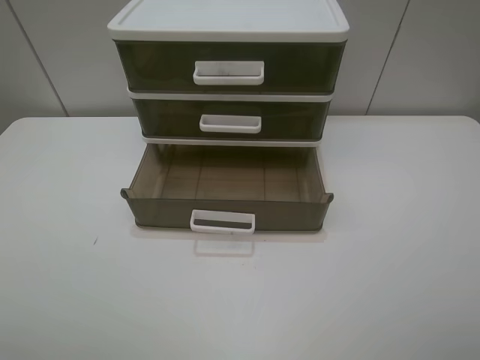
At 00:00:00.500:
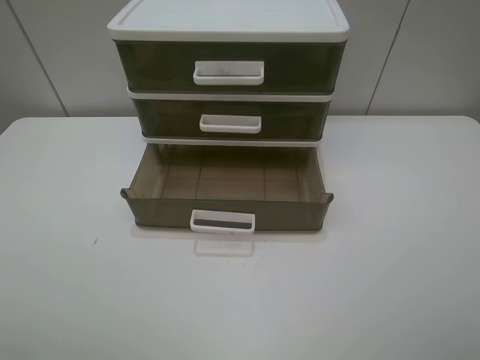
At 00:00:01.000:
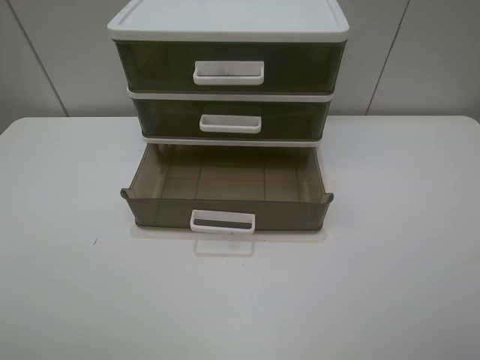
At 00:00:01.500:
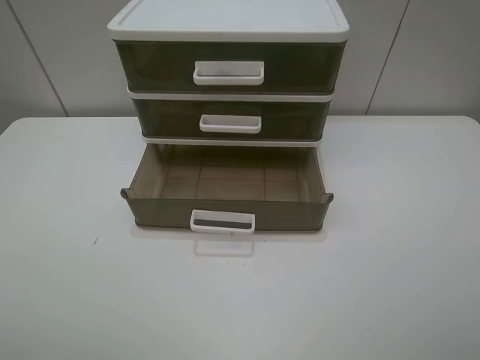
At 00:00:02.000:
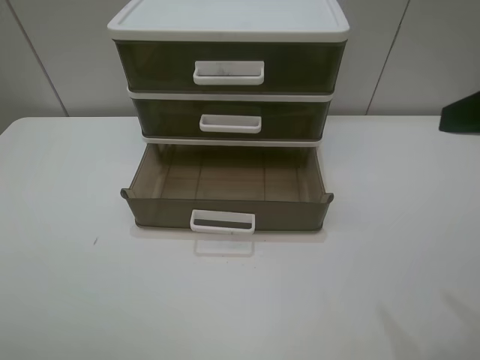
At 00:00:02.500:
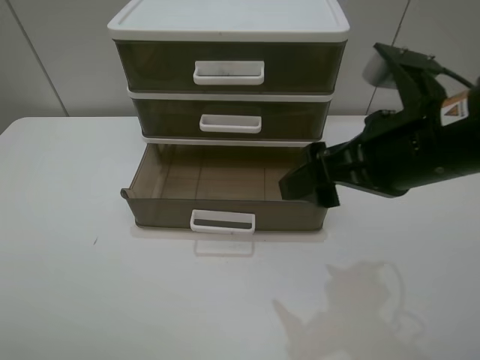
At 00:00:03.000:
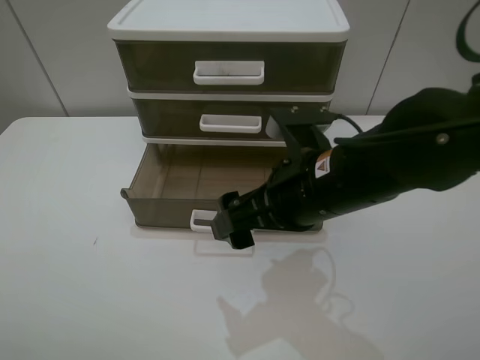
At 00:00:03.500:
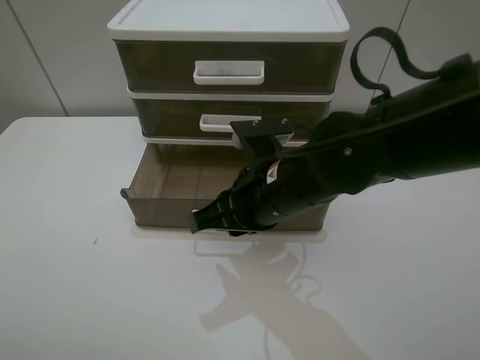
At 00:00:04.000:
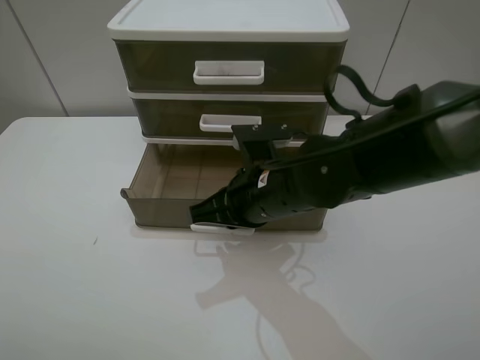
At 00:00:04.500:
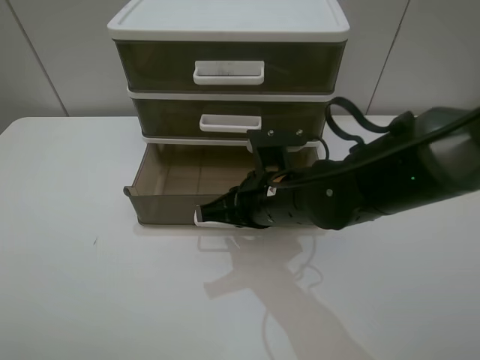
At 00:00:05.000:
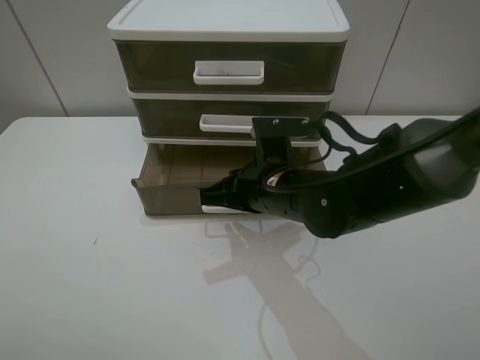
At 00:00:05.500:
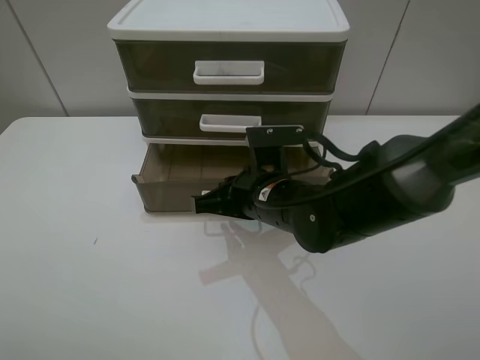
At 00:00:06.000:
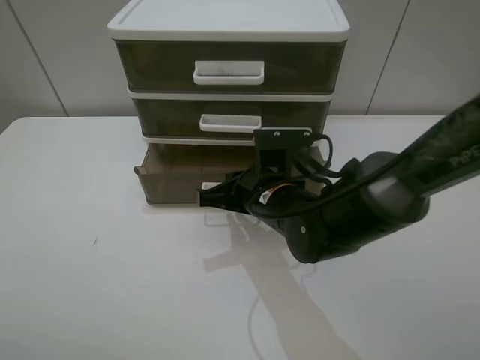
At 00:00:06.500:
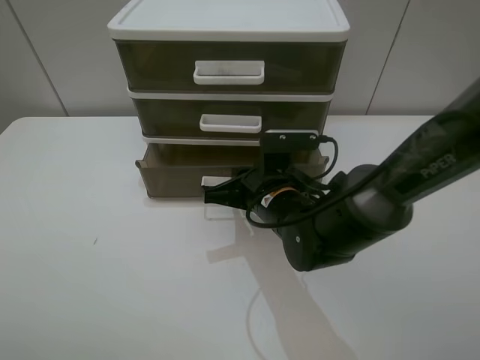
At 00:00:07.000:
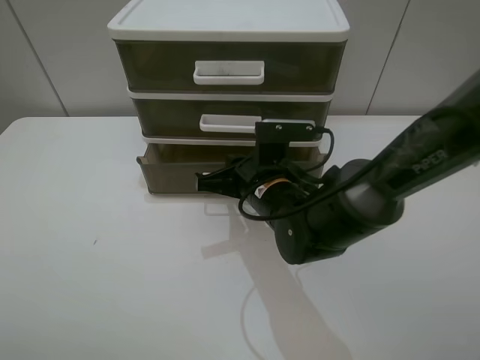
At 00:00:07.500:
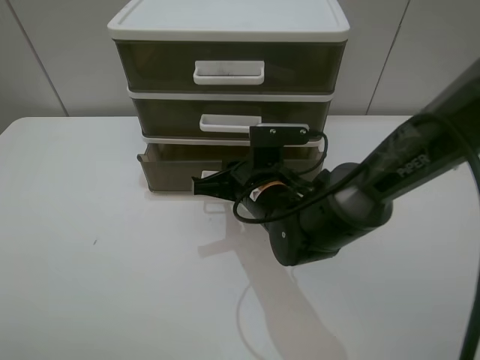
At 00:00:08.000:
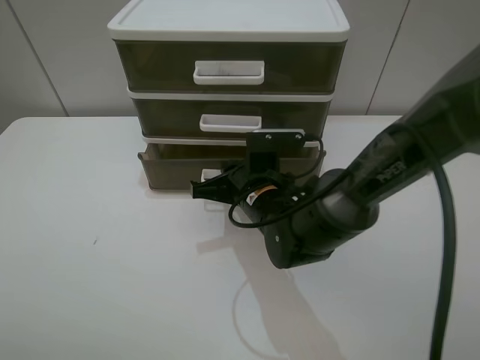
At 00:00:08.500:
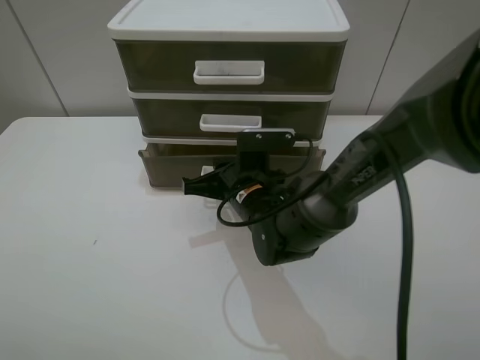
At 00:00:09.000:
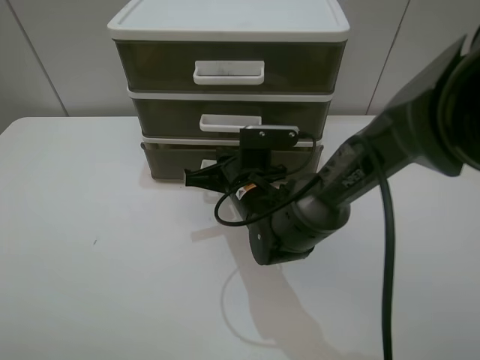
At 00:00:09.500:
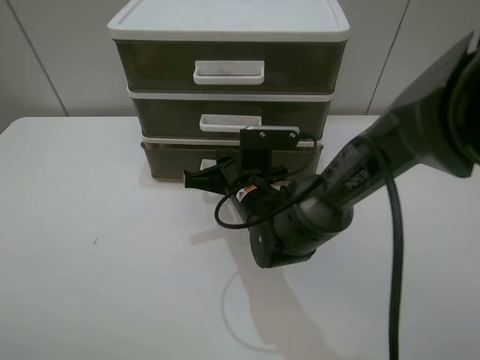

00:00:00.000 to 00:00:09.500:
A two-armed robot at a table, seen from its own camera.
Task of the whole recording: close the bottom drawer.
Step, 00:00:00.000 to 00:00:04.000: Use the right gripper to contact the bottom layer of the storage cabinet.
Step, 00:00:04.500 to 00:00:09.000: Push the bottom drawer closed.
00:00:00.000 to 00:00:02.000: The right gripper shifts about 10 cm forward.
00:00:02.000 to 00:00:04.000: The right gripper shifts approximately 30 cm to the left, downward and forward, and closes up.
00:00:04.000 to 00:00:05.500: The grippers move only a little.
00:00:05.500 to 00:00:07.500: The grippers make only small movements.
00:00:07.500 to 00:00:09.500: There are only small adjustments of the grippers.

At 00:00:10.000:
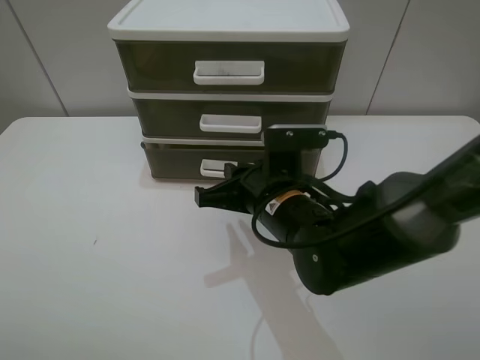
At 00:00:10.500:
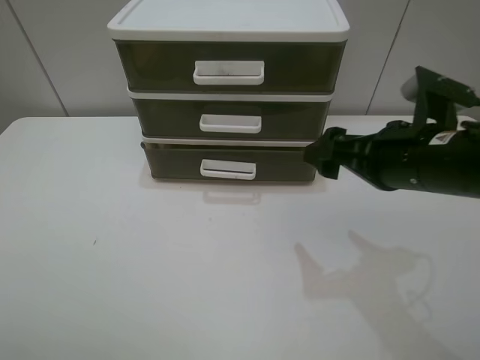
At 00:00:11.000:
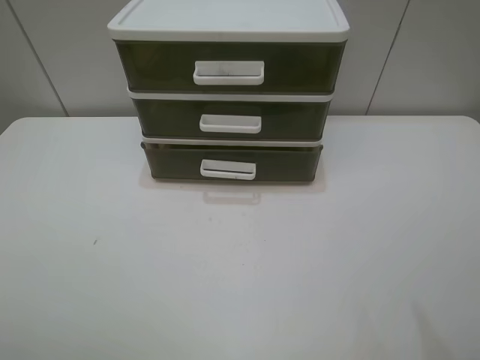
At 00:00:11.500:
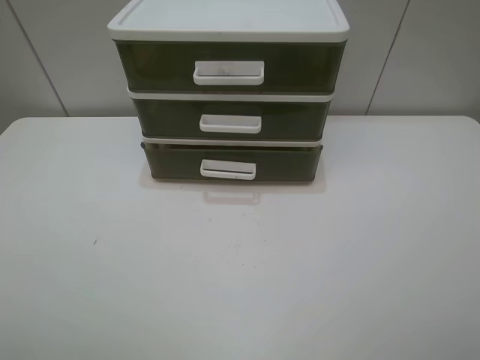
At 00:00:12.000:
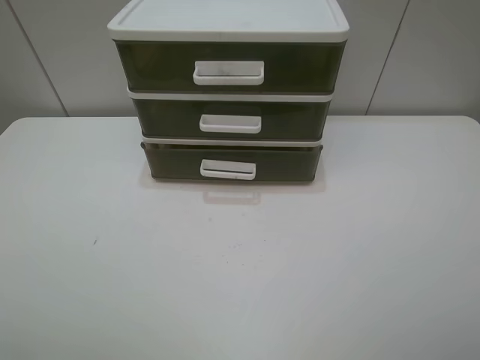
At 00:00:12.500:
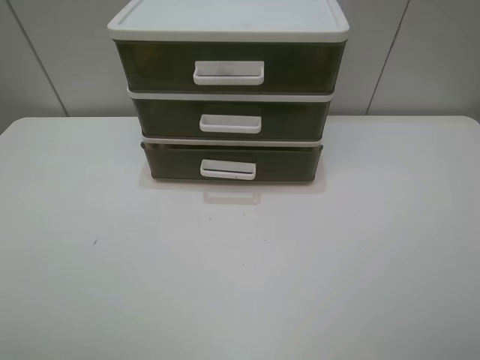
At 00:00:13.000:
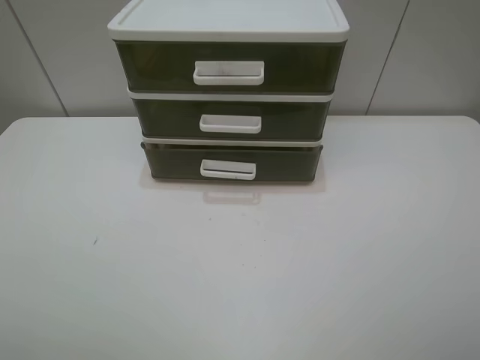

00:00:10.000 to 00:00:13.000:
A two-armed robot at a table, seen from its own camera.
Task of the whole recording: close the bottom drawer.
00:00:10.000 to 00:00:11.500: The right gripper travels to the right, upward and backward by some 40 cm, and opens.

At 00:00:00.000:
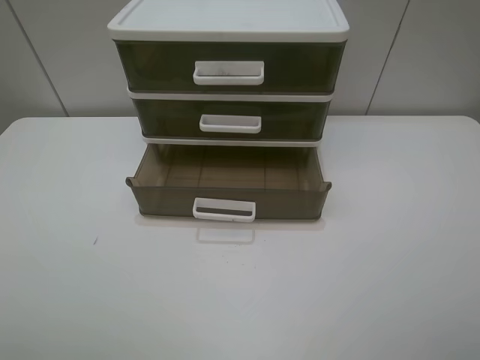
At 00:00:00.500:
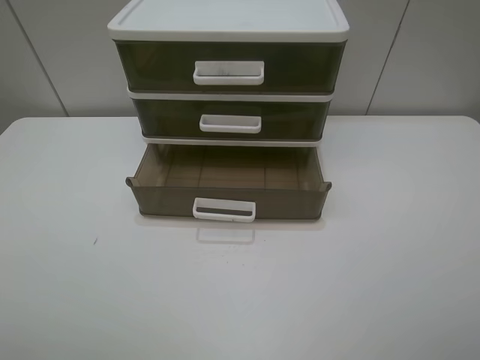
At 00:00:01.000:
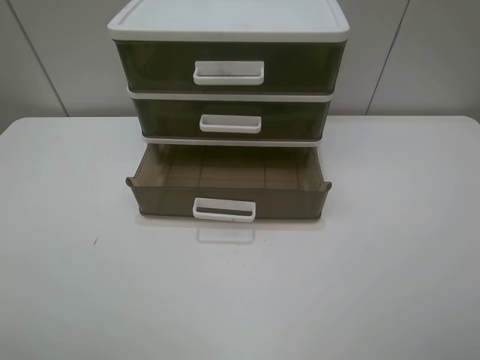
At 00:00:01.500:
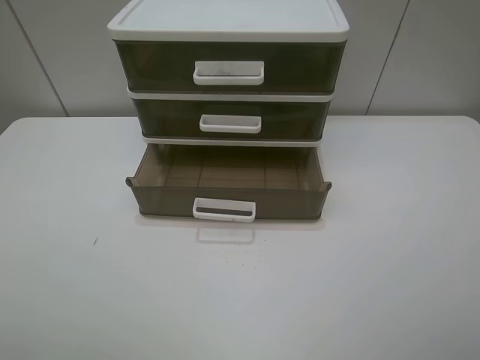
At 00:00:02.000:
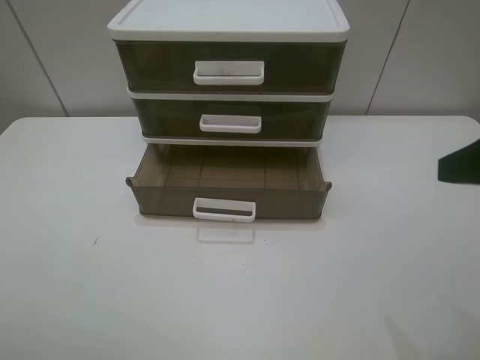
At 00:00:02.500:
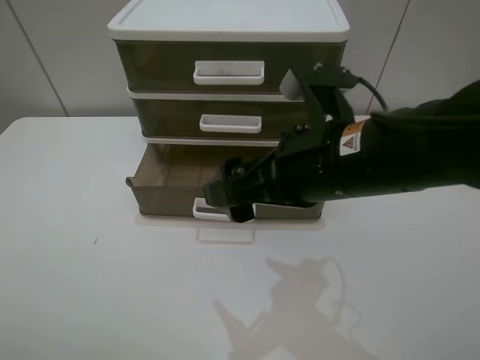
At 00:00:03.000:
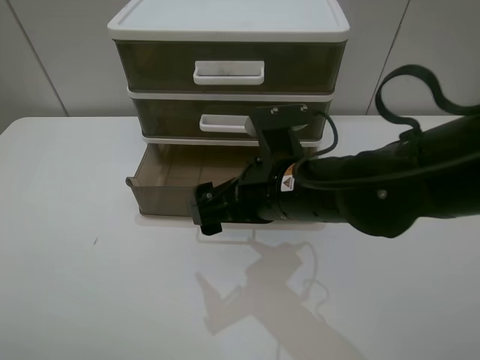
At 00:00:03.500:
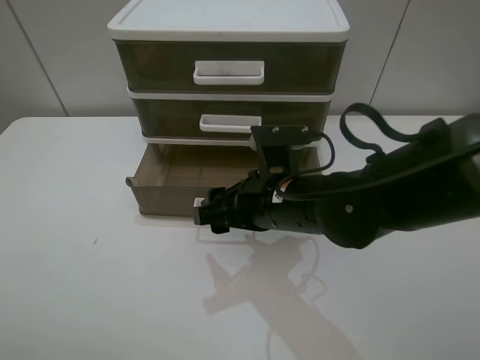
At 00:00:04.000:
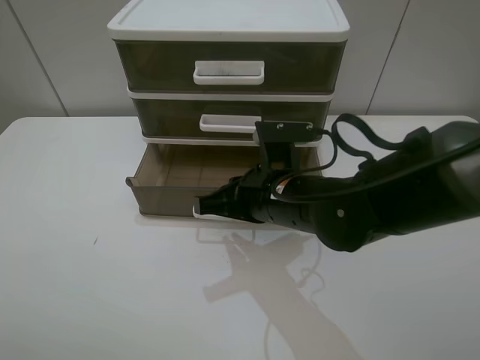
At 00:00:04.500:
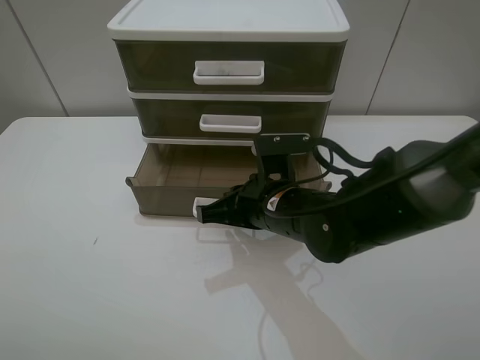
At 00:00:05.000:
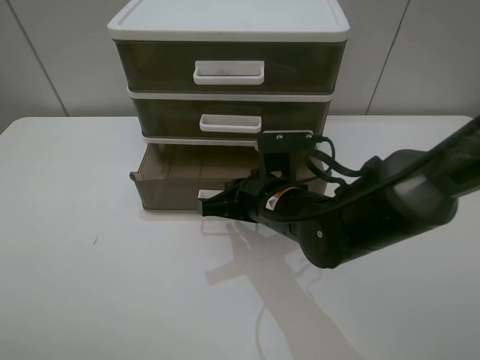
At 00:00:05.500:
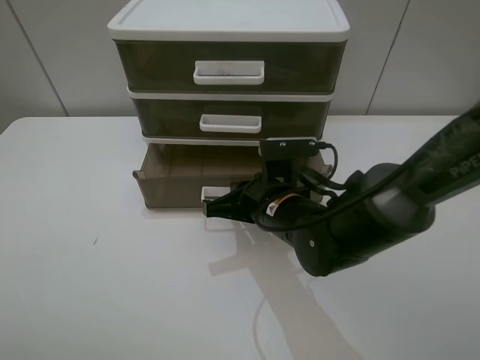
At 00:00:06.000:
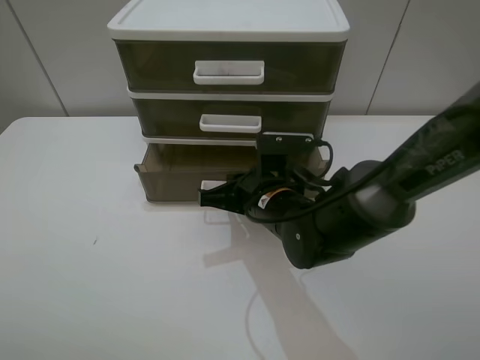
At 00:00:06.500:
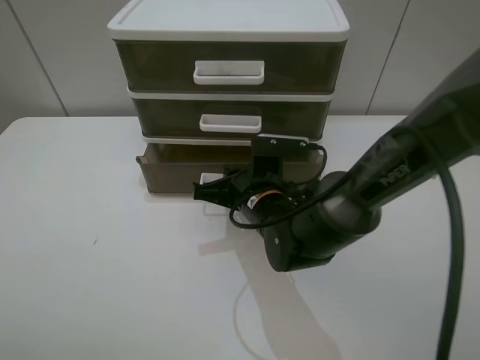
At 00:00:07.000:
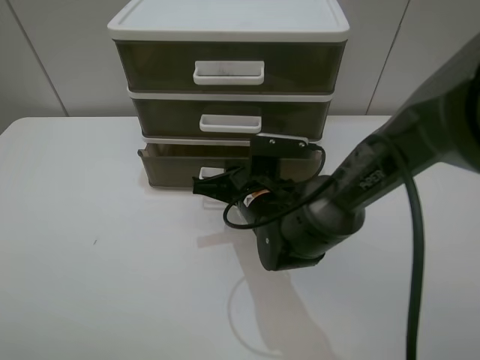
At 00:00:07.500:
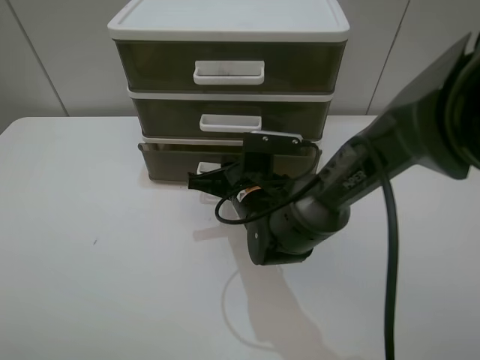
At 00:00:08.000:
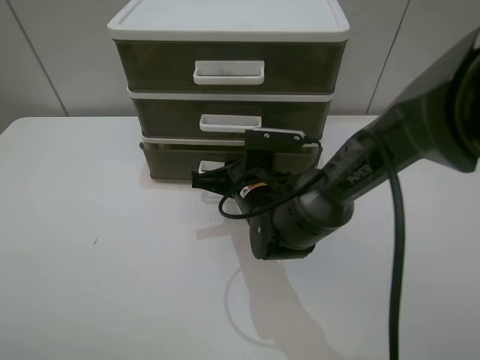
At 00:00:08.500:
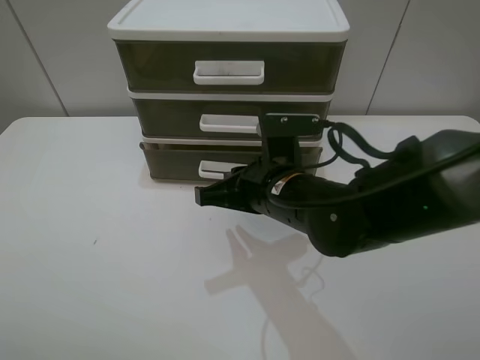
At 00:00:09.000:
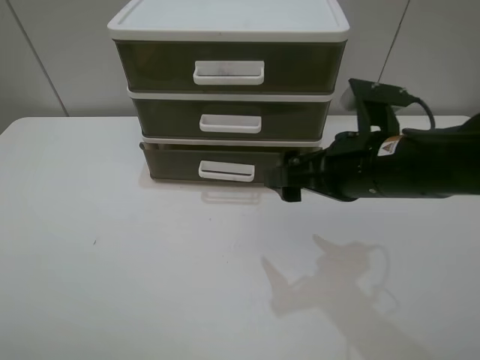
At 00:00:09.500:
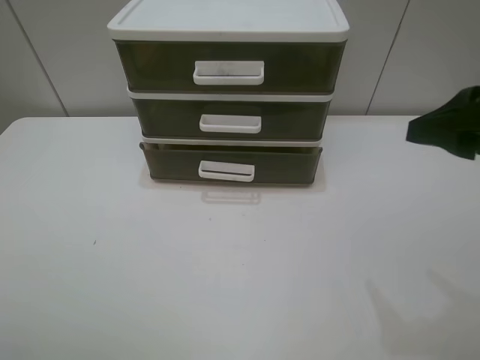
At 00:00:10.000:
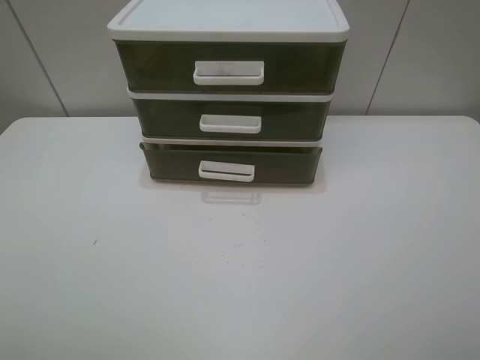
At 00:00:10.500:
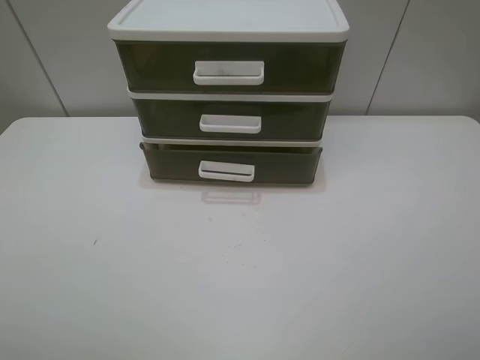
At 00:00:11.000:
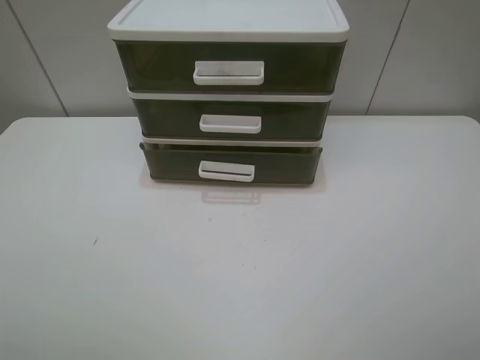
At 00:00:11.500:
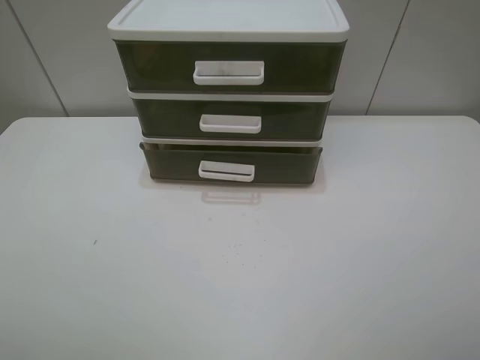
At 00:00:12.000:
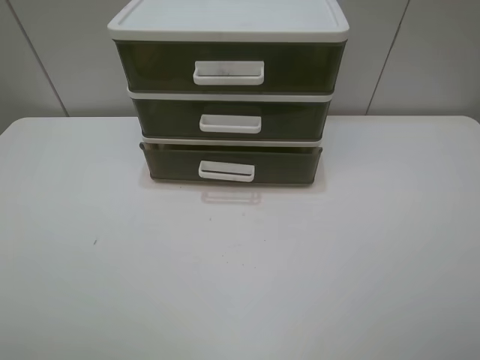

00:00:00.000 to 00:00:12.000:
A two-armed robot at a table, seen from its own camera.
Task of the whole recording: close the bottom drawer.
Step, 00:00:00.000 to 00:00:04.500: Use the right gripper to contact the bottom layer of the storage cabinet.
Step, 00:00:05.000 to 00:00:08.000: Push the bottom drawer closed.
00:00:00.000 to 00:00:02.000: The right gripper shifts approximately 15 cm forward.
00:00:02.000 to 00:00:04.000: The right gripper travels to the left, downward and forward by approximately 30 cm, and closes up.
00:00:04.000 to 00:00:06.000: The right gripper moves about 5 cm.
00:00:06.000 to 00:00:08.000: The grippers make only small movements.
00:00:08.000 to 00:00:10.000: The right gripper heads to the right, upward and backward, covering about 40 cm, and opens its fingers.
